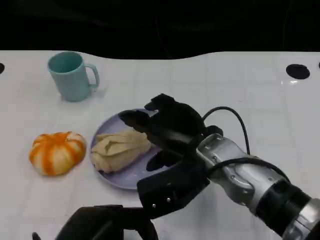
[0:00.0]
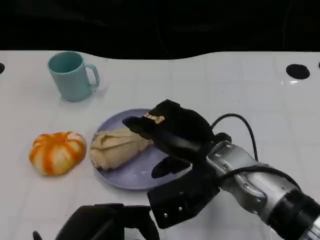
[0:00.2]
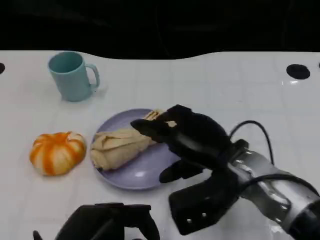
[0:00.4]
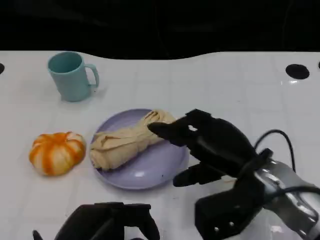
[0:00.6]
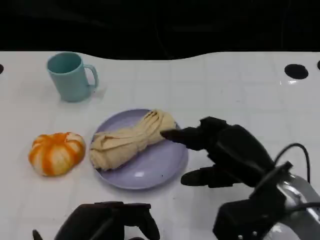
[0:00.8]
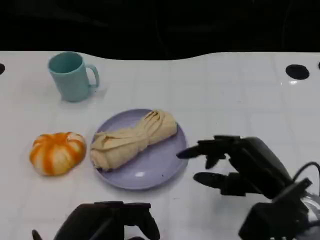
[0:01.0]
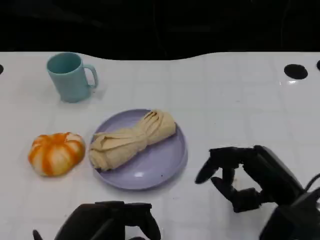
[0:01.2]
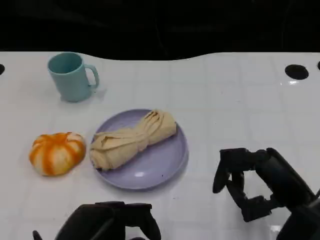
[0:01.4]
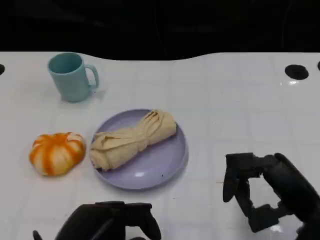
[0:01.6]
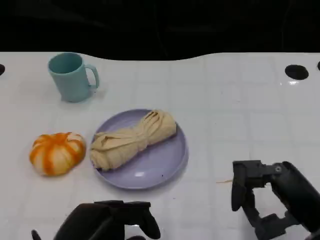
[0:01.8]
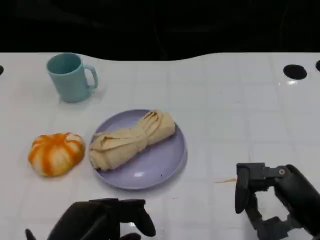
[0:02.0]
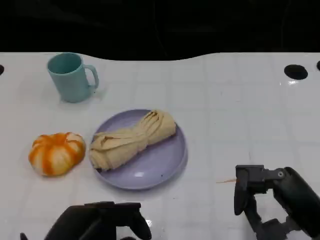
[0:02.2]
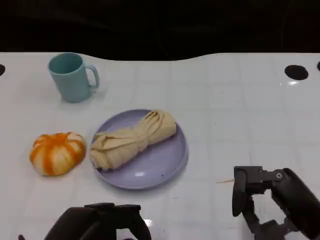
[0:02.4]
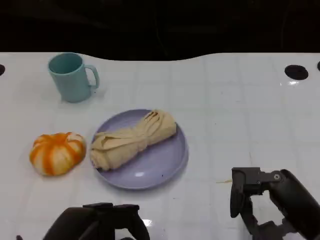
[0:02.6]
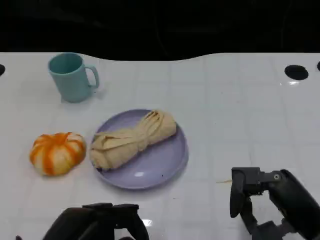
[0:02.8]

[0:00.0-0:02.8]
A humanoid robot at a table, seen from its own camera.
Task of the whole recording: Grasp the towel on the left side of the plate with the left hand and place it into the plate.
0:00.0 to 0:01.4: The right hand heads to the right and backward, covering some 15 cm.
0:01.4 to 0:02.8: The hands move only a little.

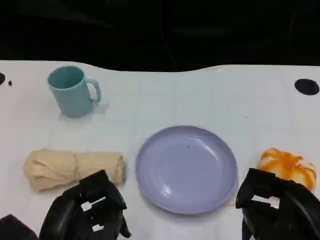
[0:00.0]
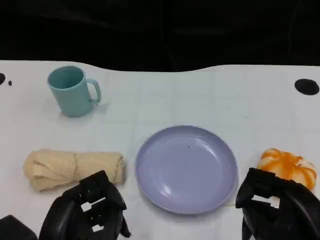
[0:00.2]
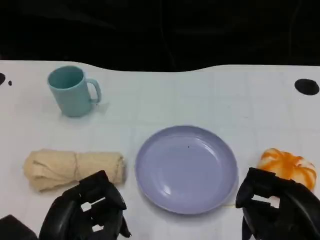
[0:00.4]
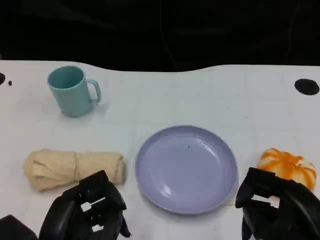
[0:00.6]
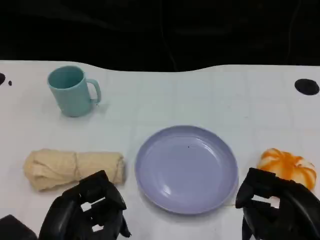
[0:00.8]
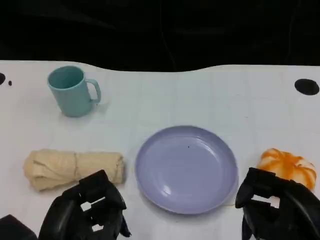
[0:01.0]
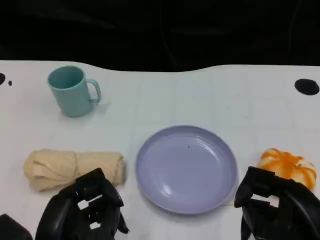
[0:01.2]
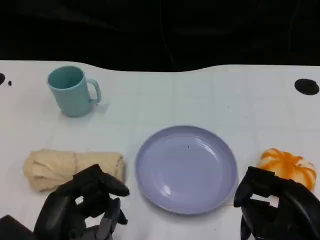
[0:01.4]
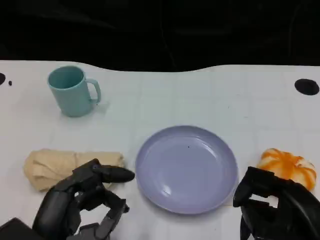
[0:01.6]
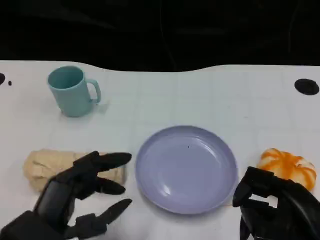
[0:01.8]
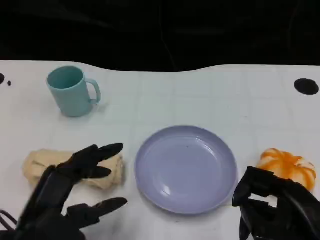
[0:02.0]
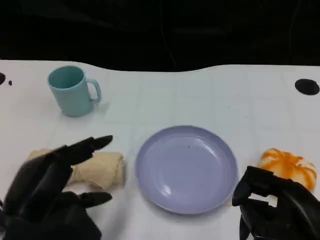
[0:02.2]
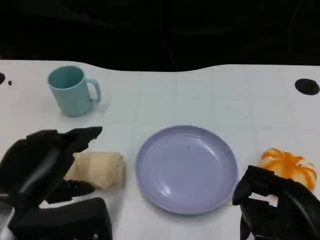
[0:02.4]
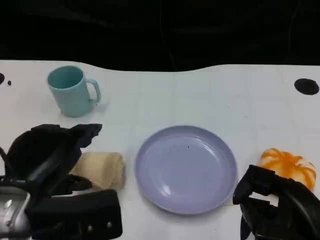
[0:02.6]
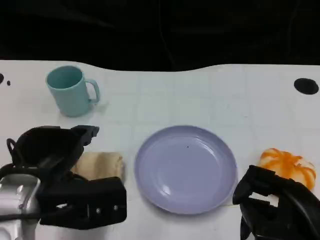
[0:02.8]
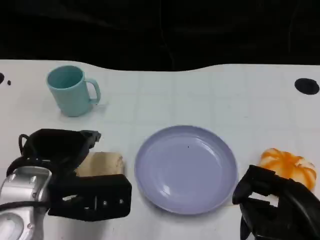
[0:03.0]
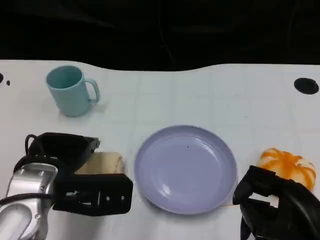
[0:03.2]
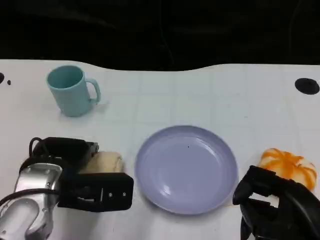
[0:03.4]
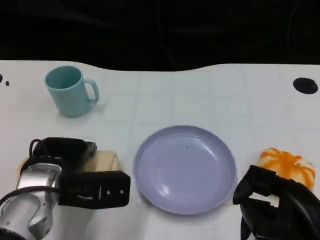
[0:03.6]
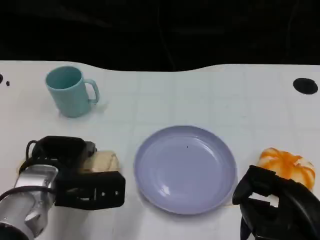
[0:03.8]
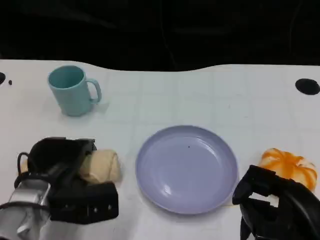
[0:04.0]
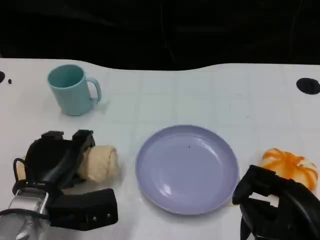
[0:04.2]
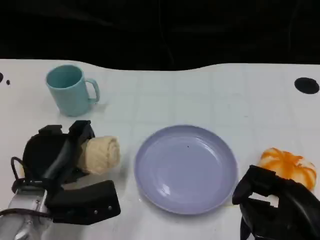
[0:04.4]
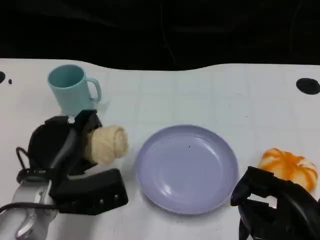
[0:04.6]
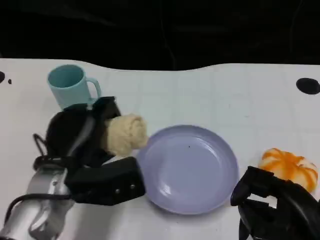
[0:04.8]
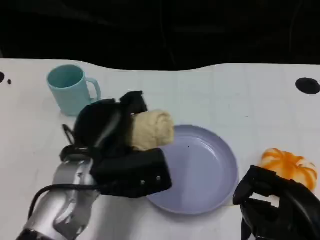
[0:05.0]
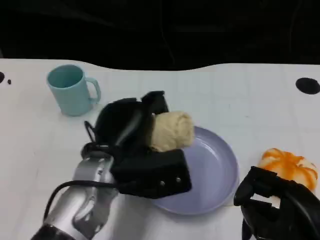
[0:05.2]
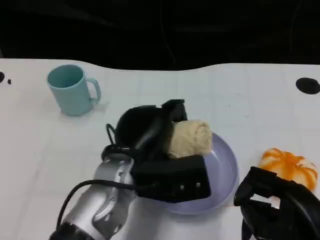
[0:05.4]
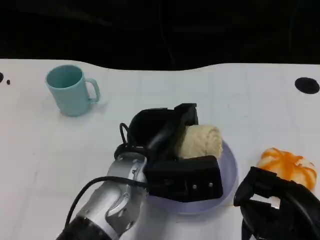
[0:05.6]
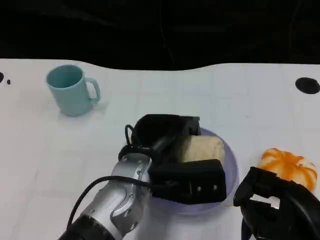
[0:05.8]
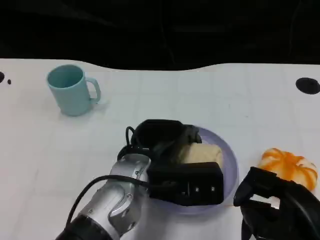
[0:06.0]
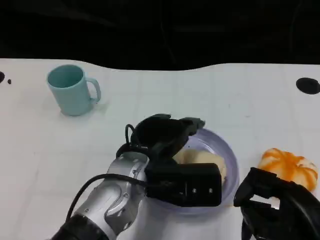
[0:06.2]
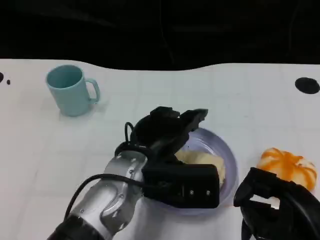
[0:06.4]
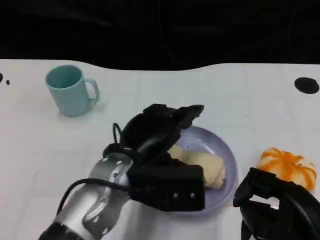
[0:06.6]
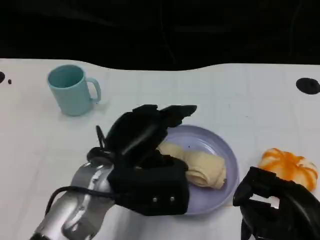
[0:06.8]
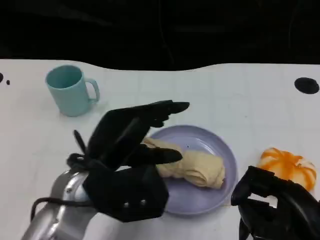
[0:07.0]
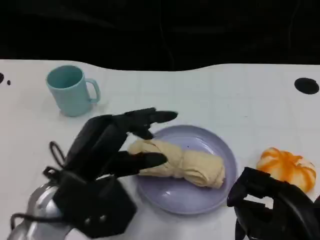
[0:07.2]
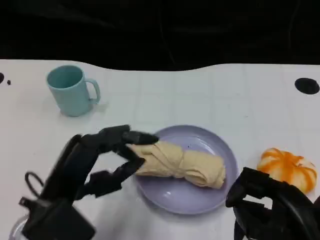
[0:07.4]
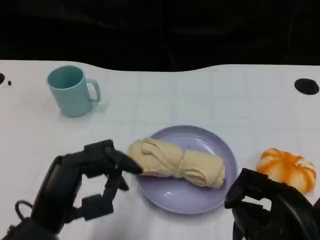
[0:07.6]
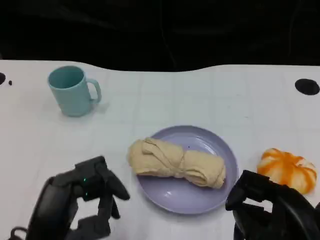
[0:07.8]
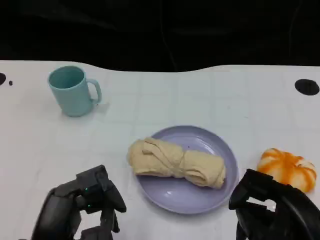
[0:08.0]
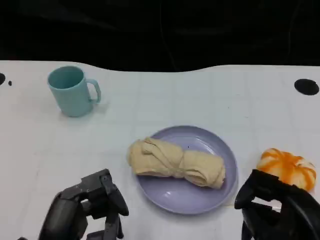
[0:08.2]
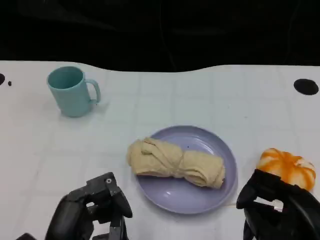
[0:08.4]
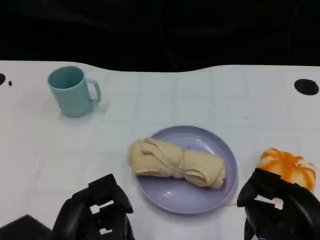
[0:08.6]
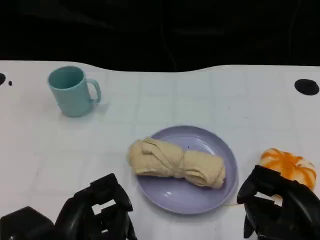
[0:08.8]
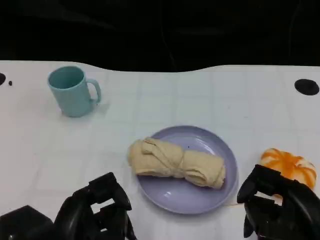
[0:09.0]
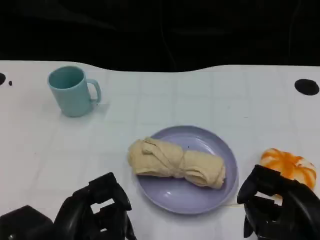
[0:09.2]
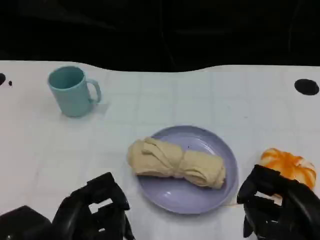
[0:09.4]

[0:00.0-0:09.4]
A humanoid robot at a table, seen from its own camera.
Task of the whole recording: Grasp the towel on the left side of the plate with the left hand and place it into the plate.
0:00.0 to 0:01.6: The hands make only small movements.
0:01.6 to 0:03.2: The left hand heads forward, covering about 10 cm.
0:04.8 to 0:06.2: The left hand moves to the right, approximately 10 cm.
0:06.2 to 0:07.8: The left hand travels backward and to the left by about 20 cm.
